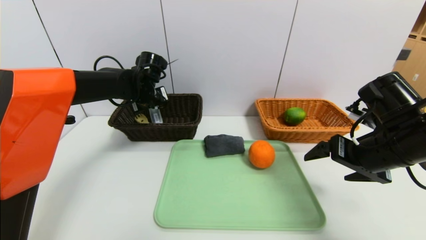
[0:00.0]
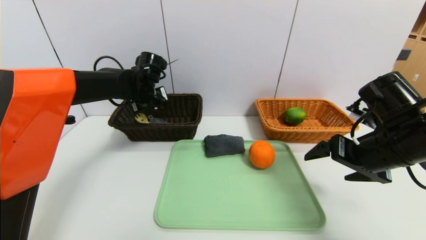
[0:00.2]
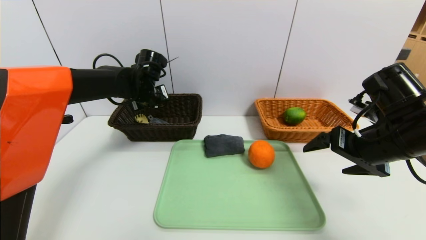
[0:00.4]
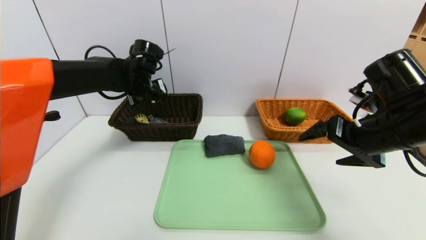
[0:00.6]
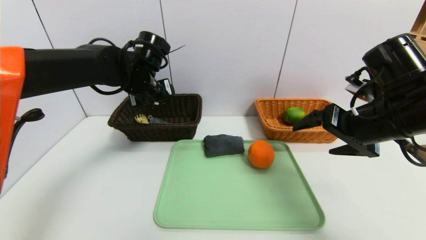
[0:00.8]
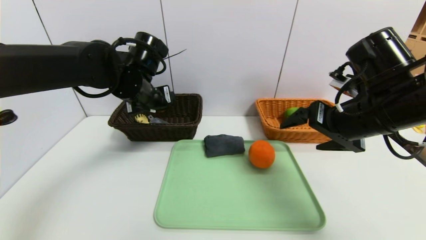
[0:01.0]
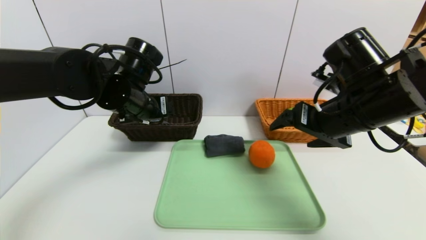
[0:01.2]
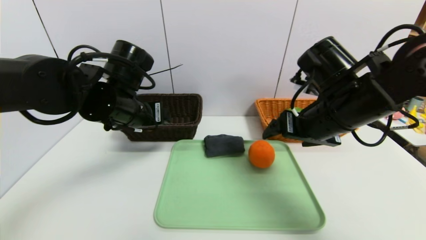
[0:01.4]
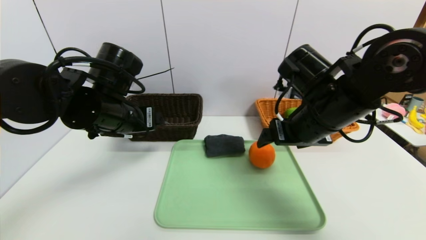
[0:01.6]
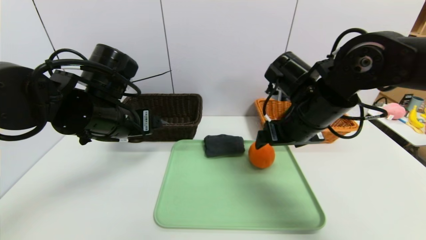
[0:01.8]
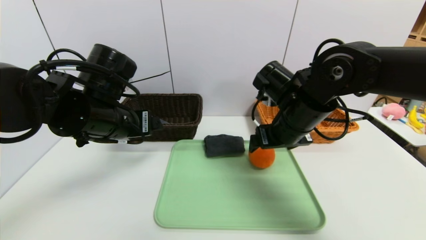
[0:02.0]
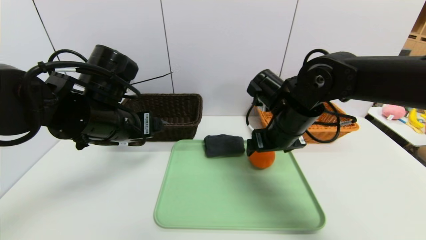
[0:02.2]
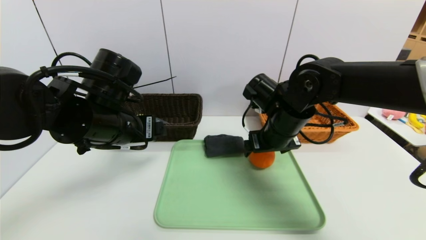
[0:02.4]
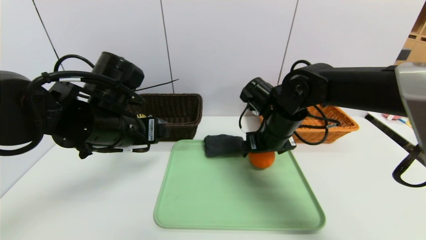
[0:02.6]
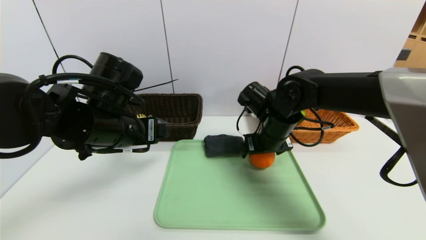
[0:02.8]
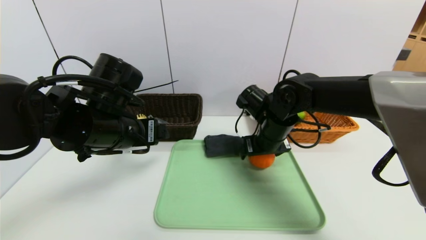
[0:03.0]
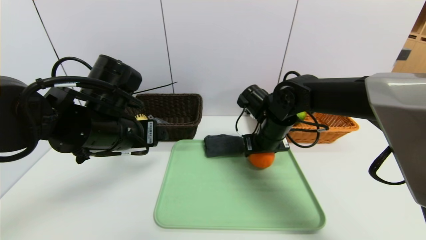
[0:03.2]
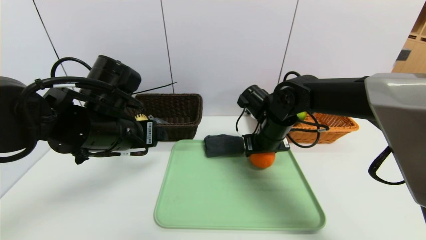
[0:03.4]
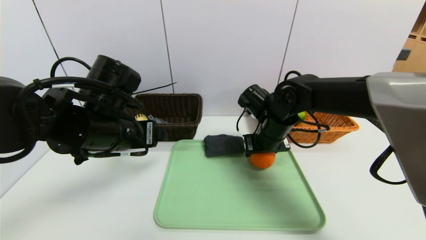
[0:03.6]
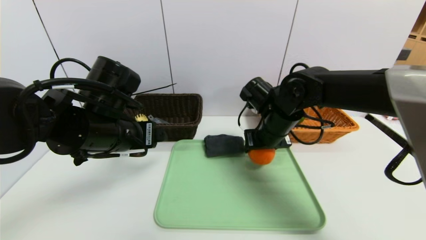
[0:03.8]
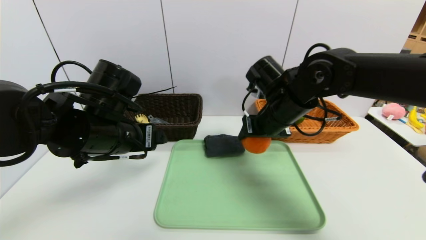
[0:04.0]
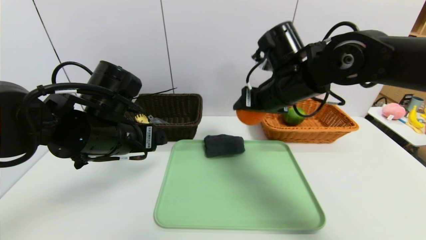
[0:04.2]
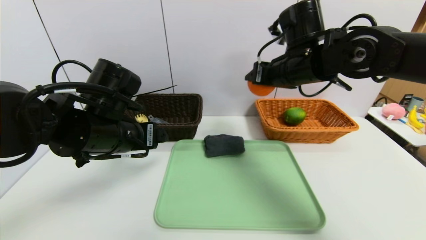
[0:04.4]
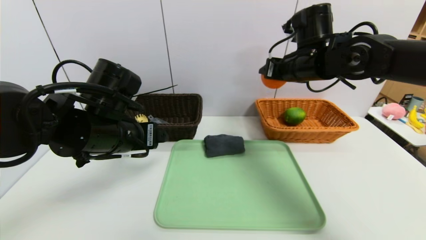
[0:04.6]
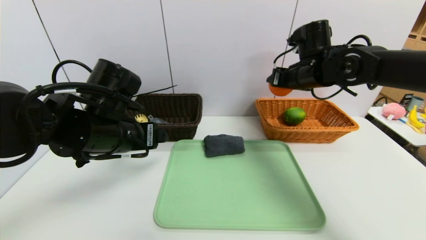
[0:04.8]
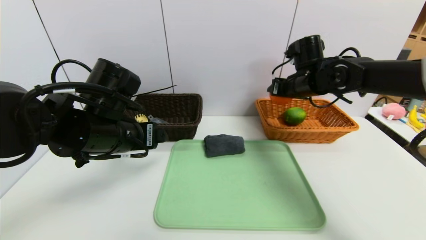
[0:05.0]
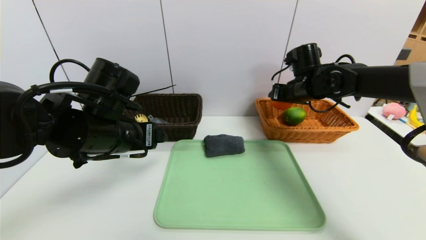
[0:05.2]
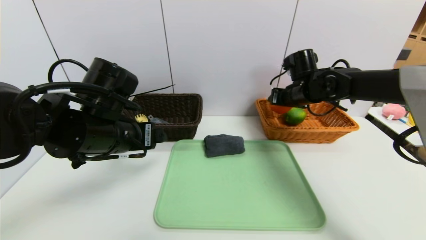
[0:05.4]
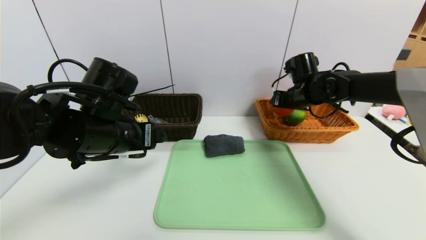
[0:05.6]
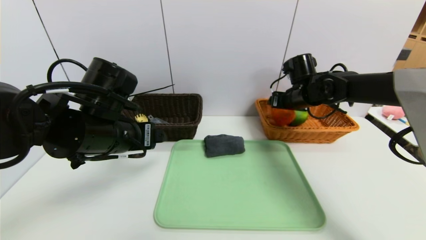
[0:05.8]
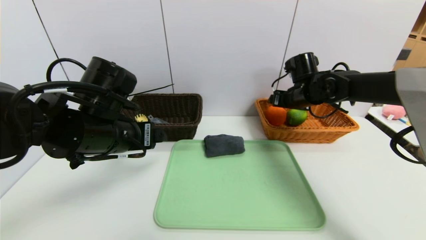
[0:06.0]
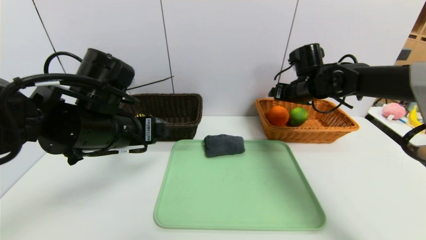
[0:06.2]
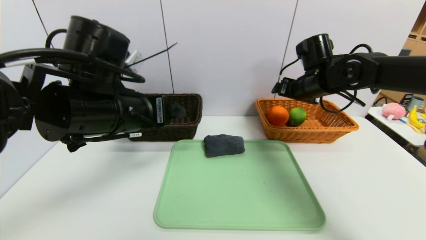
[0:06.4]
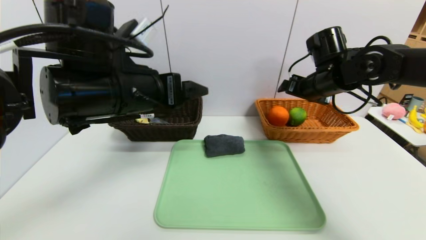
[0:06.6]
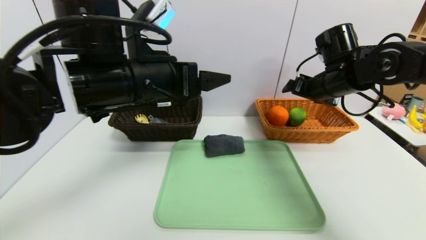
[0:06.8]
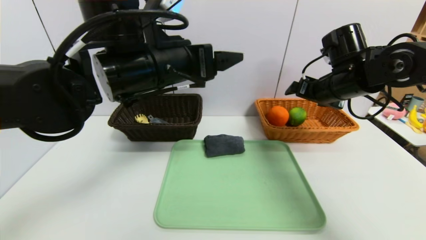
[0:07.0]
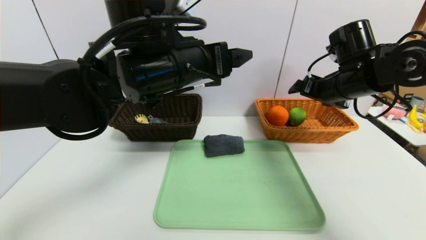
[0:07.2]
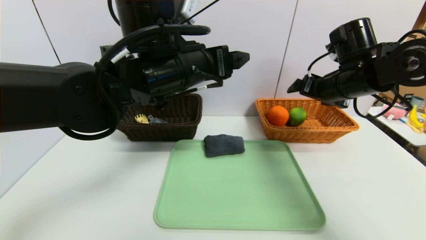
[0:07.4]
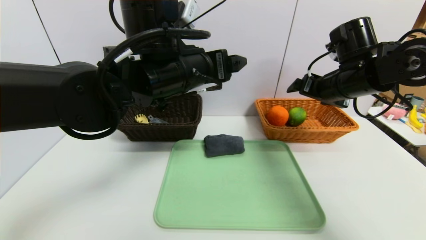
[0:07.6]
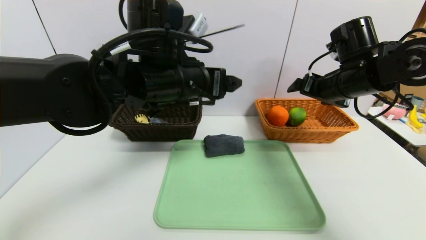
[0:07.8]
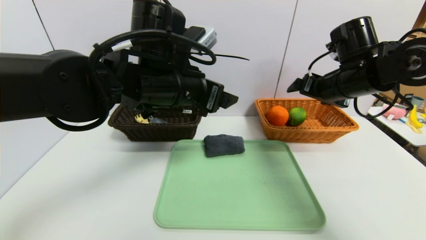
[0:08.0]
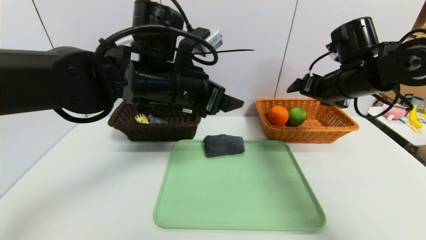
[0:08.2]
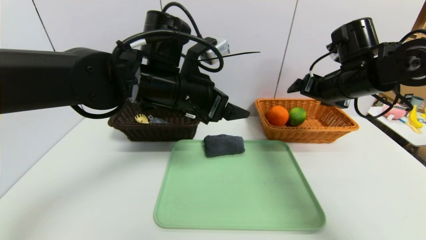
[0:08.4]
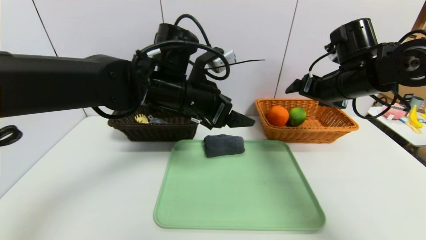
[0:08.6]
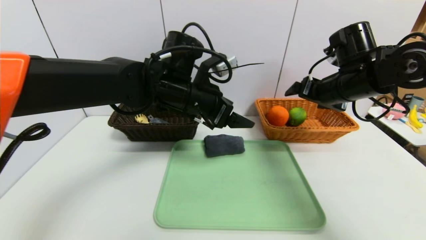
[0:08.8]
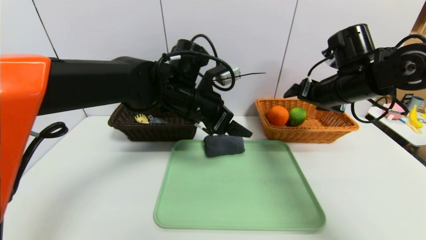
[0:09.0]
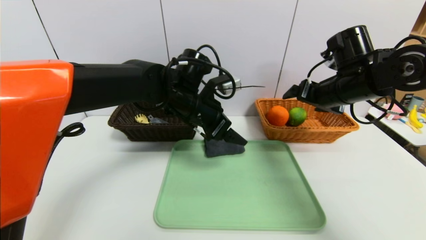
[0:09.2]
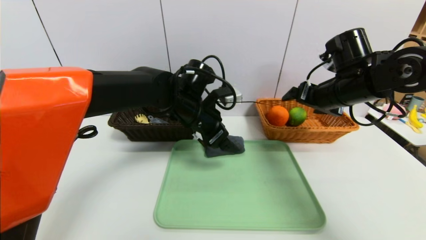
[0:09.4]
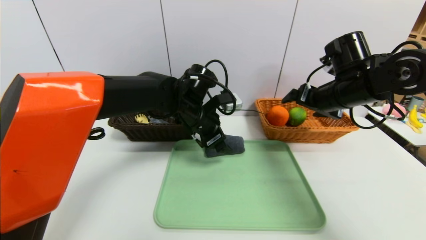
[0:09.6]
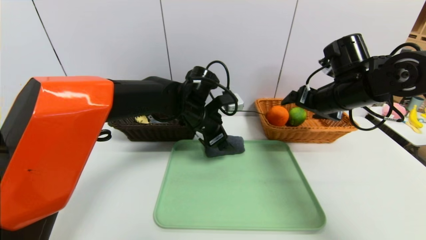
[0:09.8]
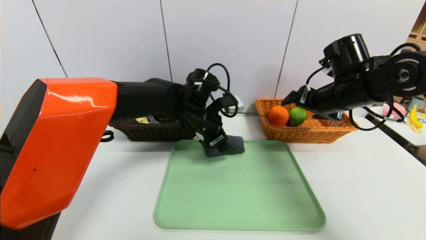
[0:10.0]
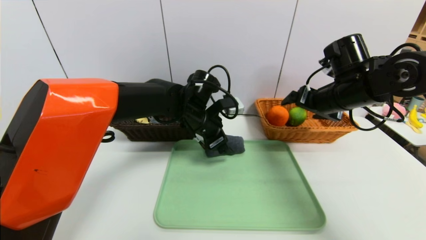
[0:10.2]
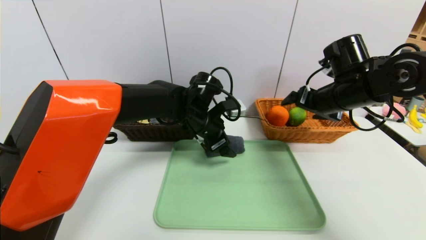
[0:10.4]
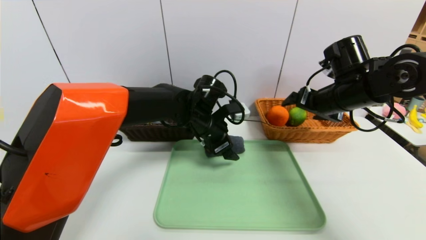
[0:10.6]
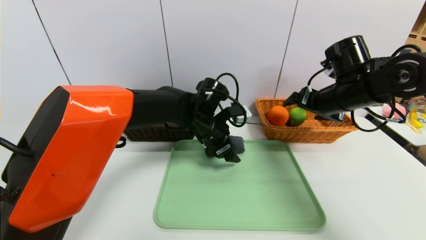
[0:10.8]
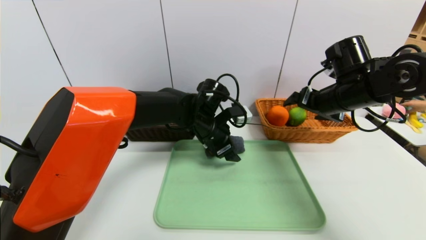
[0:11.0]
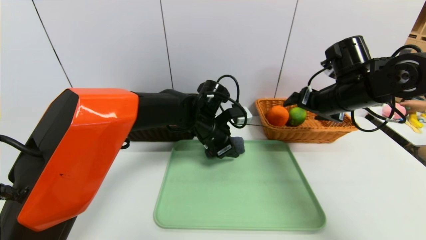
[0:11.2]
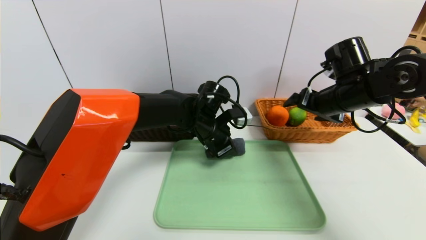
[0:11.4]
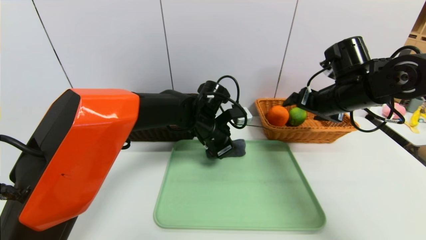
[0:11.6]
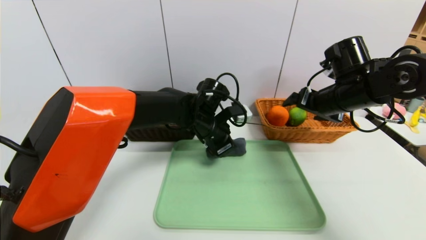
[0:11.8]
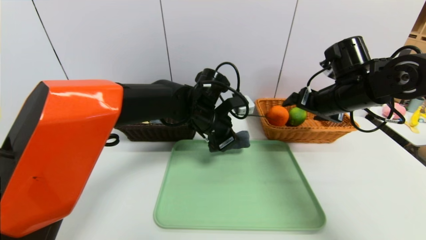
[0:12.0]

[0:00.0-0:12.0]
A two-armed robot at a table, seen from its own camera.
Task of the whole recording: place the food in the right basket with the right gripper, and place the non food items in the left basket with the left gripper.
Step, 0:01.2 to 0:06.2: Grasp the orange and put it in the right basket.
0:00.0 to 0:01.6: The right gripper travels to the left by some 10 cm. The left gripper travels backward by about 15 cm, and opens its fingers.
0:01.6 to 0:03.0: The right gripper moves downward and forward, some 10 cm.
0:03.0 to 0:04.4: The right gripper goes about 15 cm upward, and closes up.
0:04.4 to 0:06.0: The right gripper moves downward, forward and to the right, approximately 15 cm, and opens up.
0:06.0 to 0:07.6: The left gripper is displaced to the right and upward by about 15 cm, while the right gripper moves backward and upward, approximately 10 cm.
0:07.6 to 0:09.0: The left gripper heads downward and forward, covering about 10 cm.
0:09.0 to 0:10.4: The left gripper moves downward, roughly 5 cm.
0:10.4 to 0:12.0: The left gripper closes.

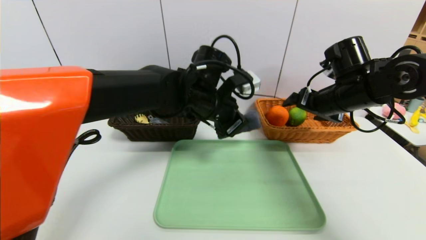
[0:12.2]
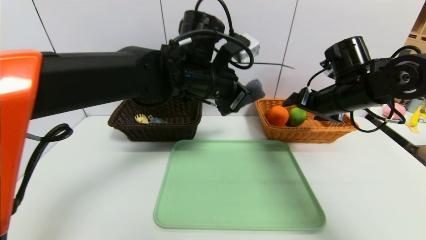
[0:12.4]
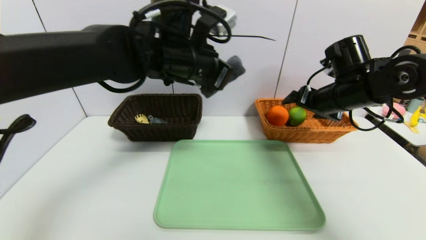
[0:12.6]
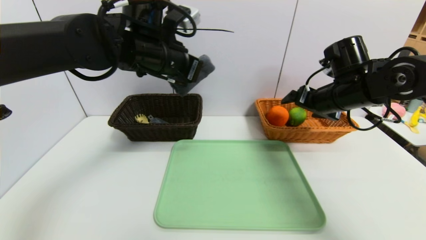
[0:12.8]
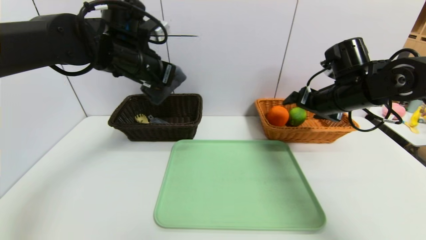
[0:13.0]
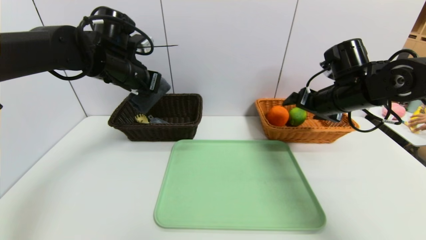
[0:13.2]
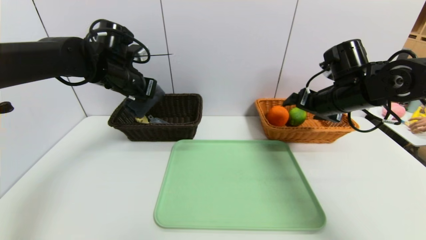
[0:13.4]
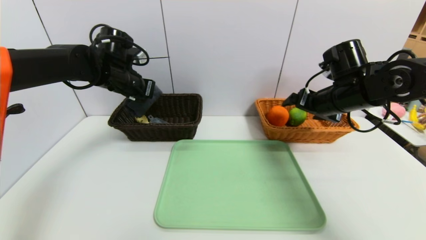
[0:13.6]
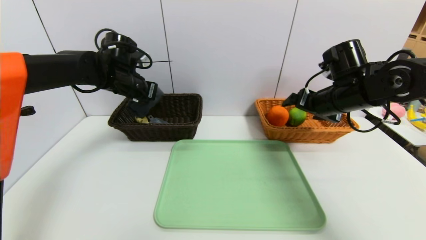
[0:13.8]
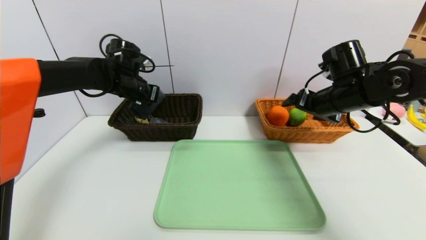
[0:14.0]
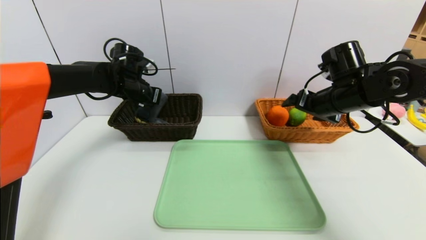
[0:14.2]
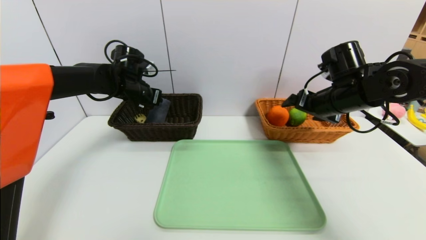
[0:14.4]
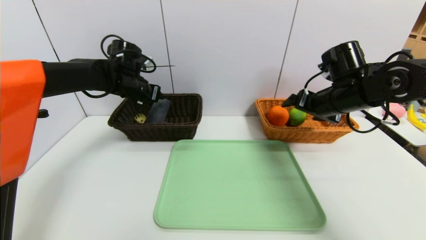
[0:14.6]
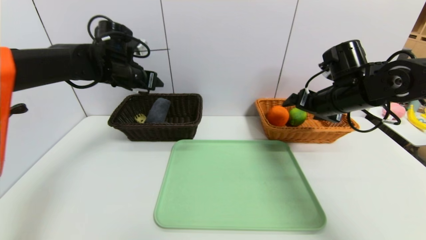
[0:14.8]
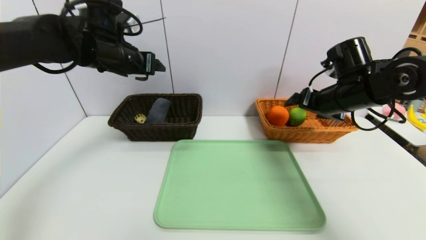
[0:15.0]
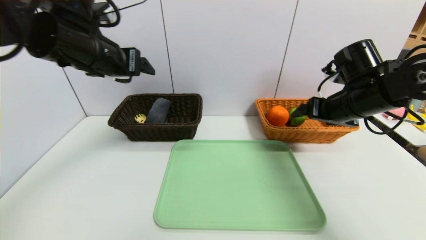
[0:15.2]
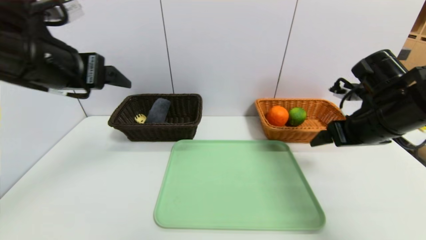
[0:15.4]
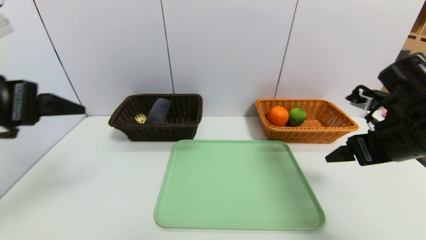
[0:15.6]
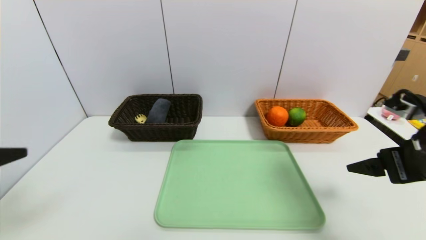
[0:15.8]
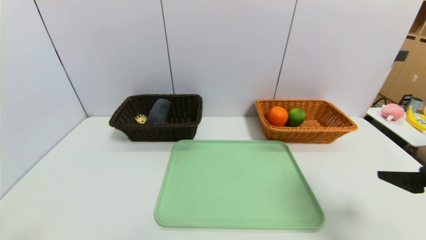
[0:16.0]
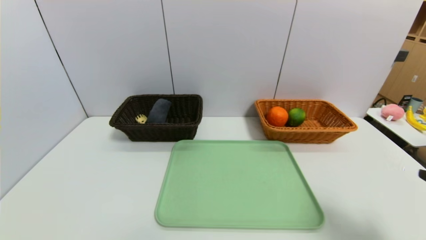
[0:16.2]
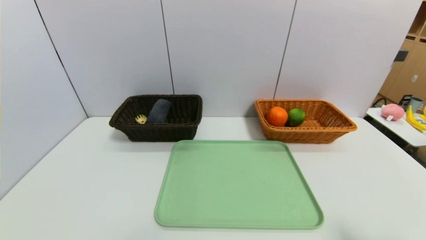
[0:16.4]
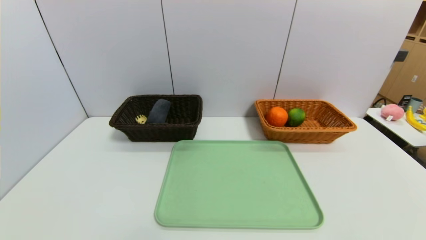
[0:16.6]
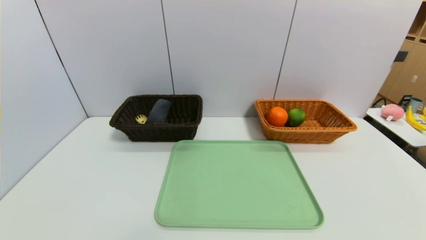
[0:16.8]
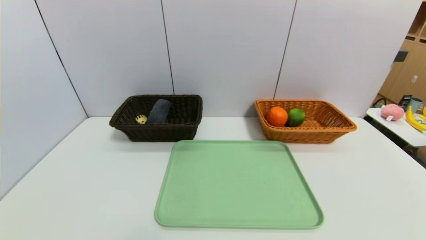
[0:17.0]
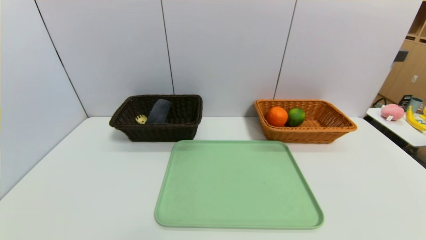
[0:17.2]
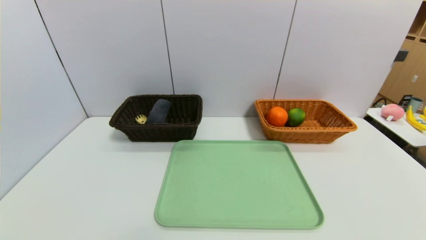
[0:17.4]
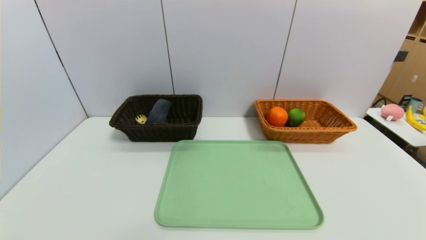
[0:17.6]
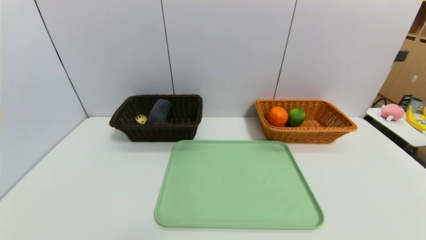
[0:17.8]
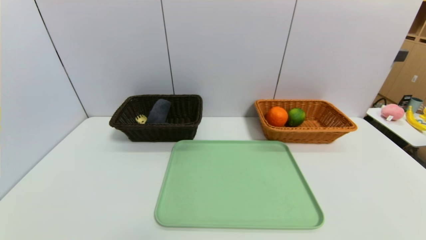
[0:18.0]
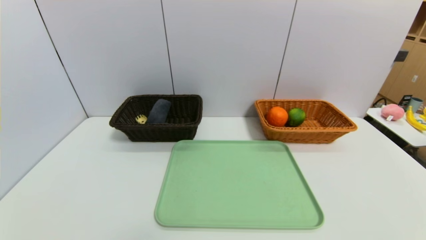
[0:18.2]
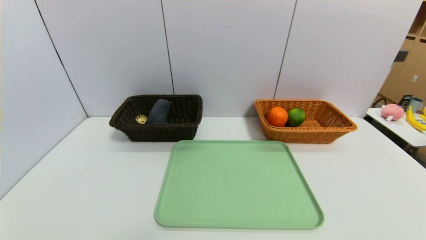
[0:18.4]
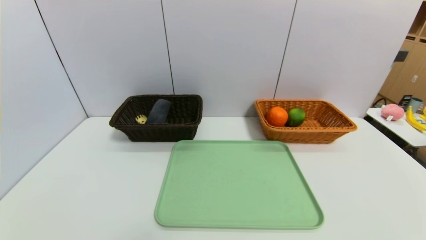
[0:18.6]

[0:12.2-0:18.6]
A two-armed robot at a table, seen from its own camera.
Task of the whole recording: place the food in the right basket with the right gripper, and place the non food items in the left basket with the left gripper.
Step, 0:12.2 to 0:14.6: Grasp the grey towel and put it in the left basket.
0:12.2 to 0:13.8: The left gripper moves to the left and forward, approximately 20 cm.
0:13.8 to 0:15.4: The left gripper shifts about 25 cm backward and upward, and opens up. The right gripper is displaced backward by approximately 10 cm.
0:15.4 to 0:17.0: The left gripper moves backward and downward, about 35 cm, while the right gripper moves backward, some 35 cm.
